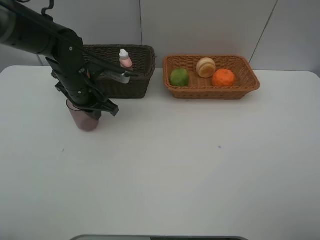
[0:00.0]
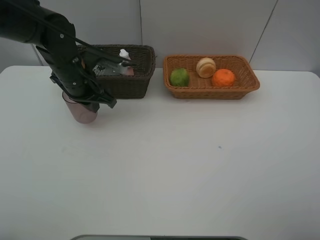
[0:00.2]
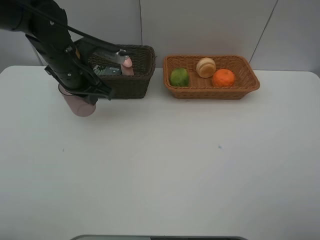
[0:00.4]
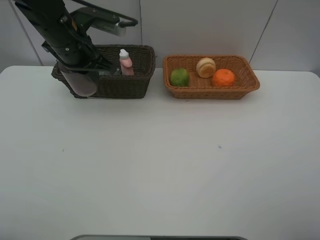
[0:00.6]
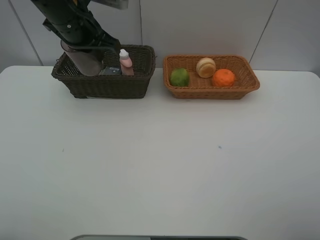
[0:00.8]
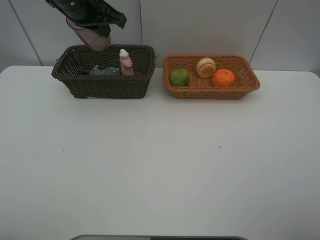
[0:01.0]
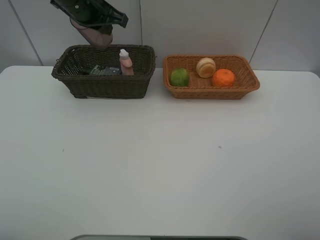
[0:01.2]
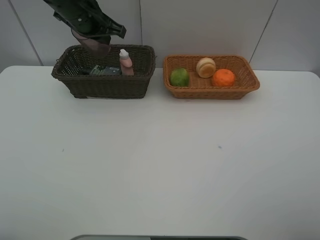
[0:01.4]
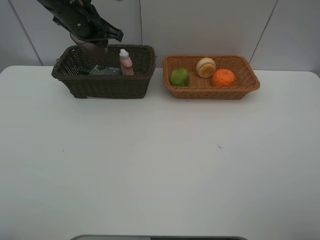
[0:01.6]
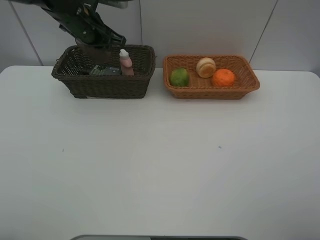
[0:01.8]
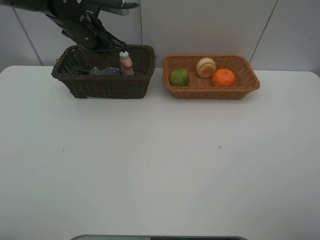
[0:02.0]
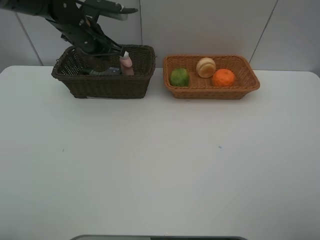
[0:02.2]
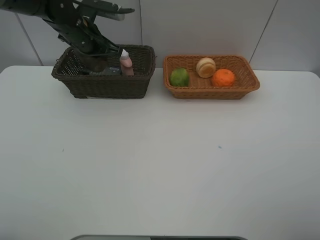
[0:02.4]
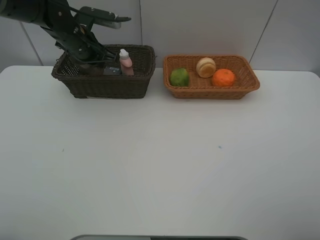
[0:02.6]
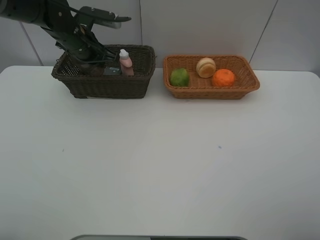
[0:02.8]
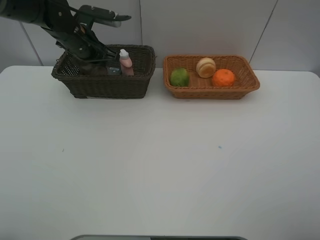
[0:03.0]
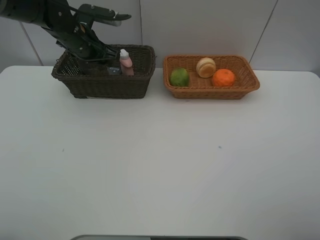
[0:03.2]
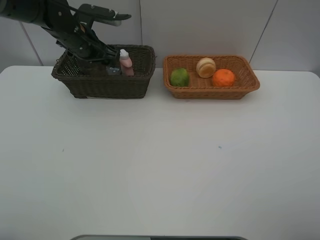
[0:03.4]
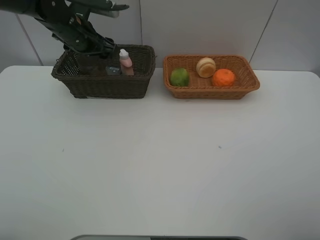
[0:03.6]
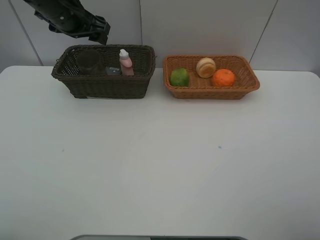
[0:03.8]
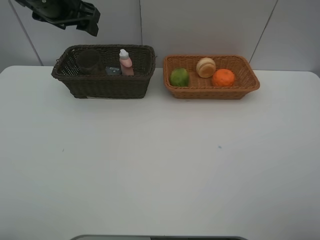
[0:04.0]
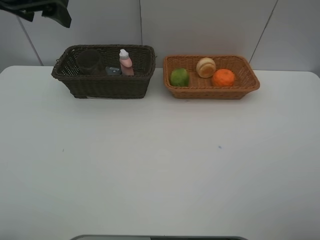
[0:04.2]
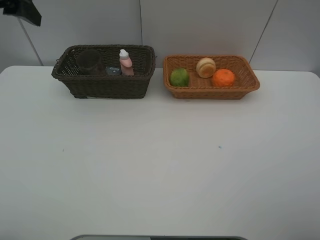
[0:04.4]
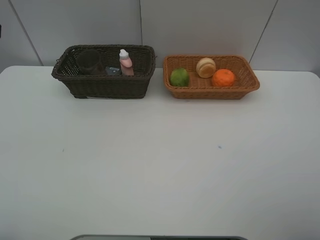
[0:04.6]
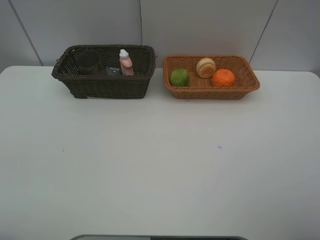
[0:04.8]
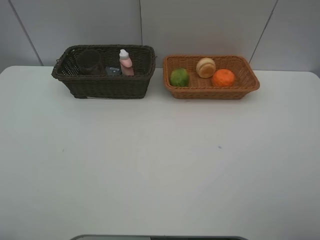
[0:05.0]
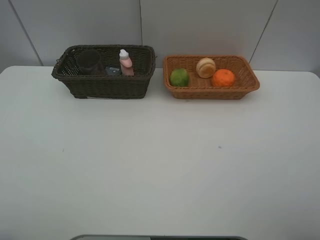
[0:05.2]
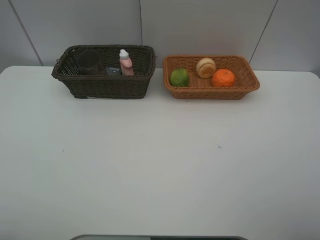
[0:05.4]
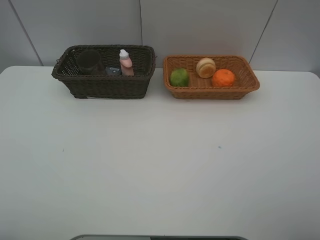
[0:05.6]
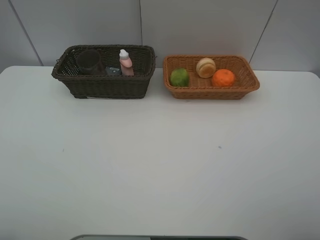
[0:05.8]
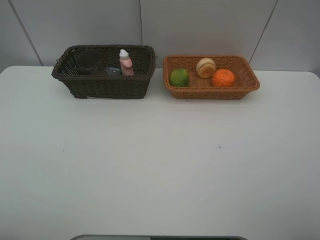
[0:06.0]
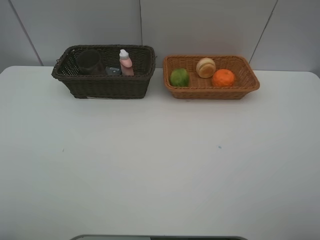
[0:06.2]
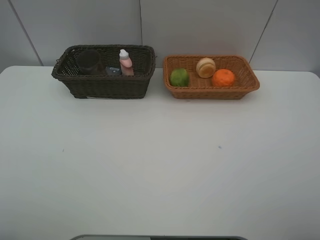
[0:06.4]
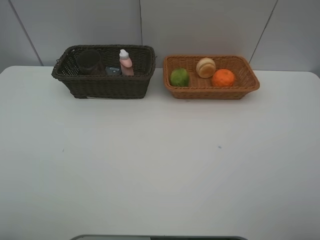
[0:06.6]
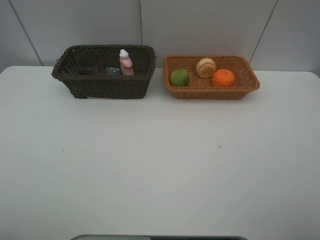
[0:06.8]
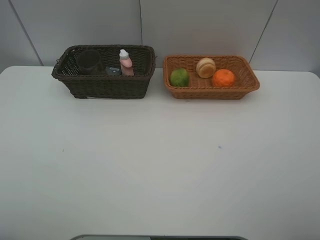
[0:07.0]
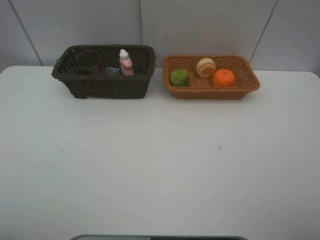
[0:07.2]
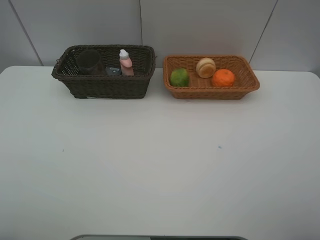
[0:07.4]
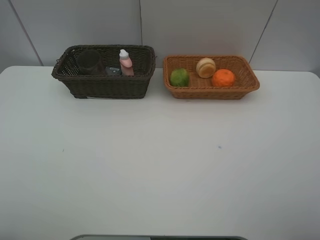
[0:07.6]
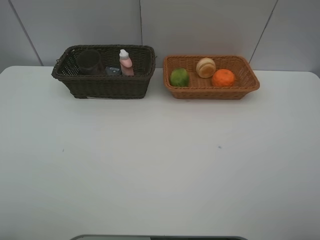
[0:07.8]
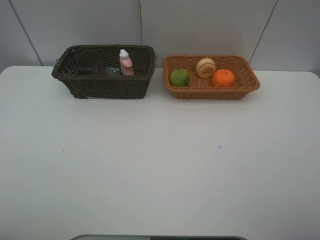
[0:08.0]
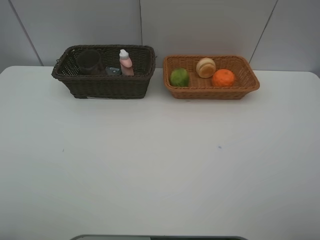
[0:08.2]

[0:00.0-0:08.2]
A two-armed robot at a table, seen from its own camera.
Task of the whole recording: place multiple objects separately in different baskets.
0:00.0 to 0:01.6: The left gripper travels upward and forward by about 15 cm.
0:01.6 to 0:03.2: The left gripper heads downward, covering approximately 5 cm, and opens.
0:03.2 to 0:05.0: The left gripper is displaced backward and upward by approximately 40 cm.
0:06.6 to 0:08.2: Both grippers stay put.
